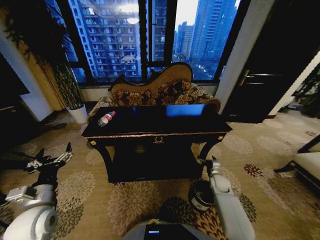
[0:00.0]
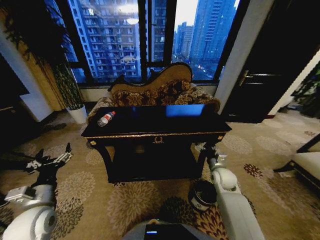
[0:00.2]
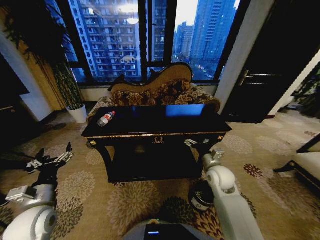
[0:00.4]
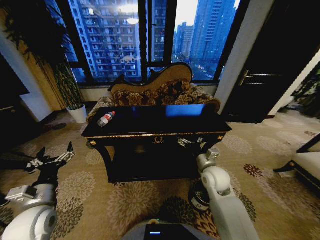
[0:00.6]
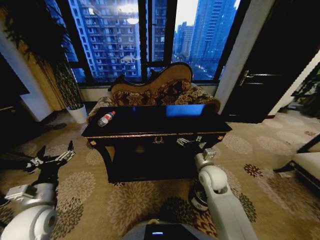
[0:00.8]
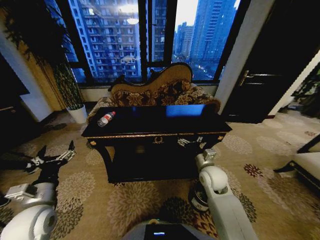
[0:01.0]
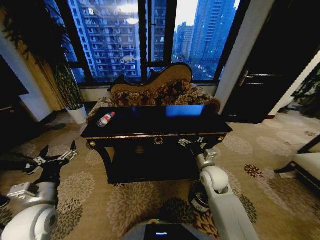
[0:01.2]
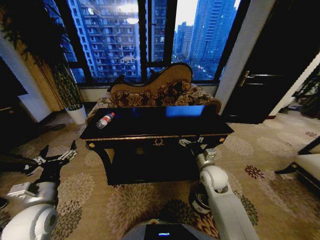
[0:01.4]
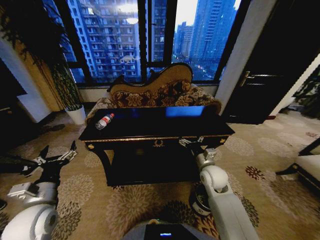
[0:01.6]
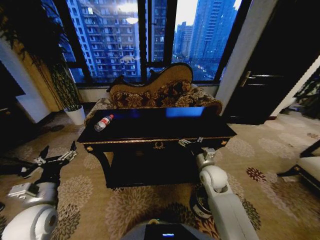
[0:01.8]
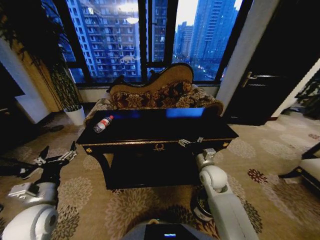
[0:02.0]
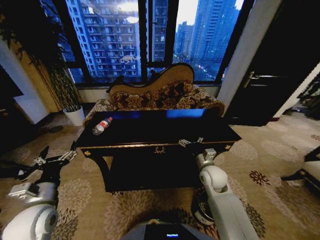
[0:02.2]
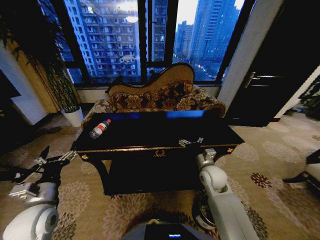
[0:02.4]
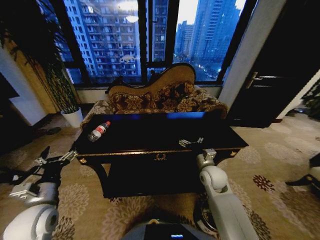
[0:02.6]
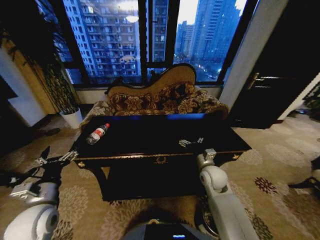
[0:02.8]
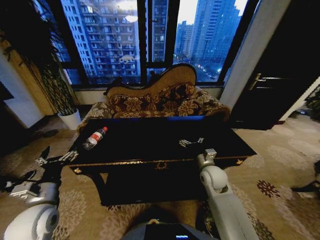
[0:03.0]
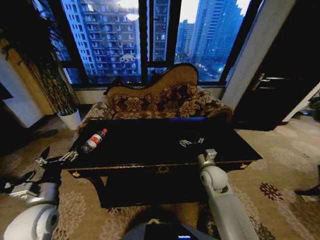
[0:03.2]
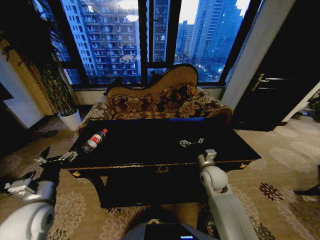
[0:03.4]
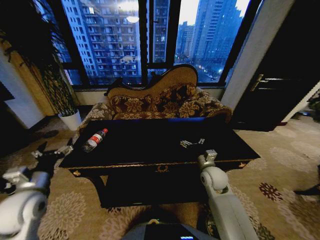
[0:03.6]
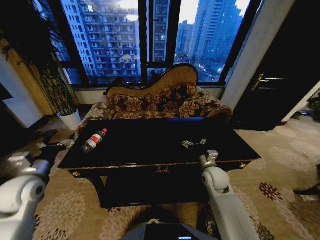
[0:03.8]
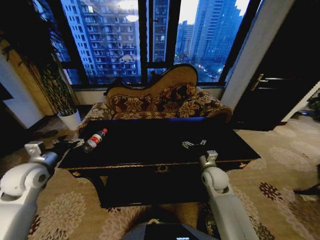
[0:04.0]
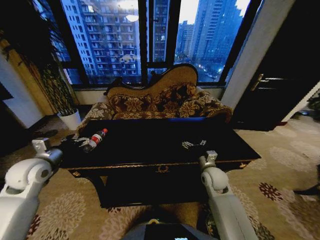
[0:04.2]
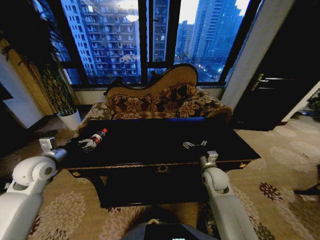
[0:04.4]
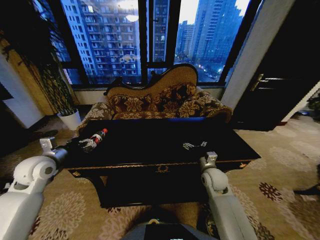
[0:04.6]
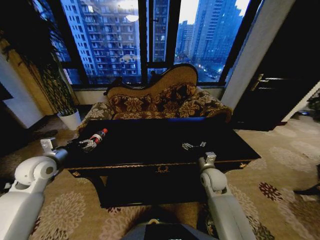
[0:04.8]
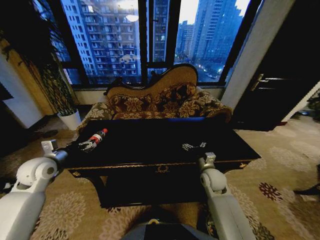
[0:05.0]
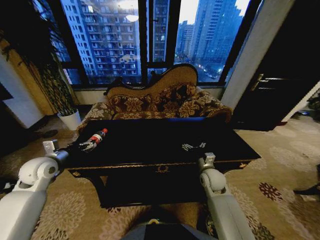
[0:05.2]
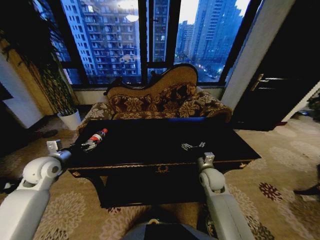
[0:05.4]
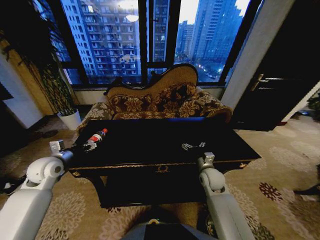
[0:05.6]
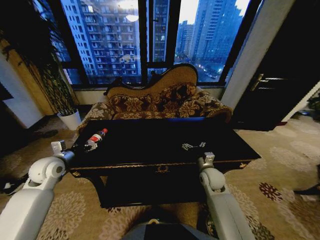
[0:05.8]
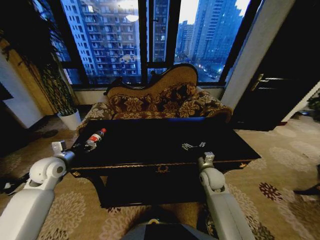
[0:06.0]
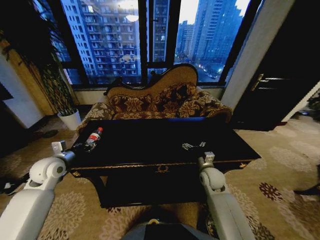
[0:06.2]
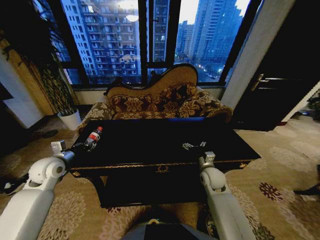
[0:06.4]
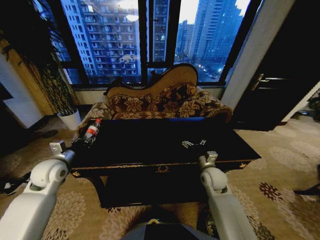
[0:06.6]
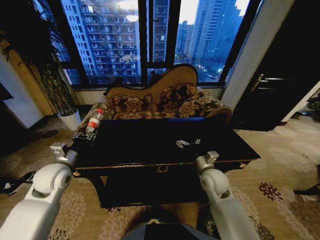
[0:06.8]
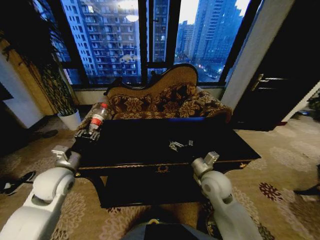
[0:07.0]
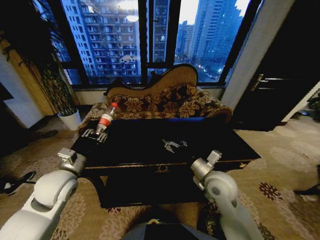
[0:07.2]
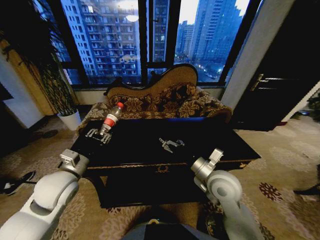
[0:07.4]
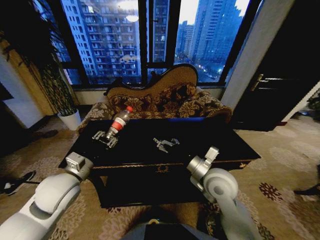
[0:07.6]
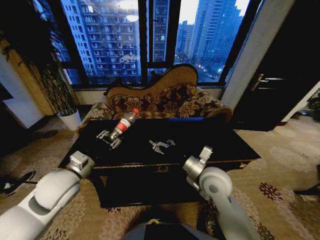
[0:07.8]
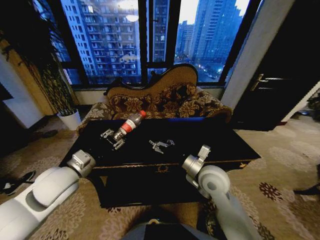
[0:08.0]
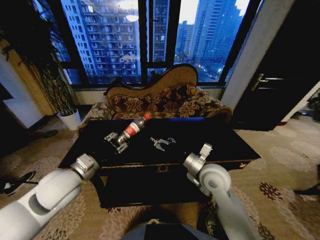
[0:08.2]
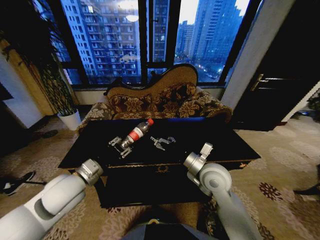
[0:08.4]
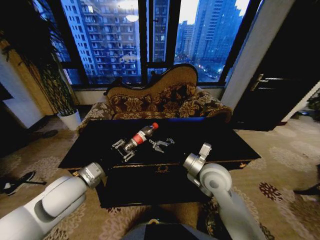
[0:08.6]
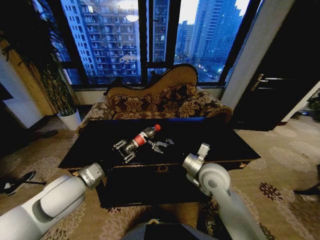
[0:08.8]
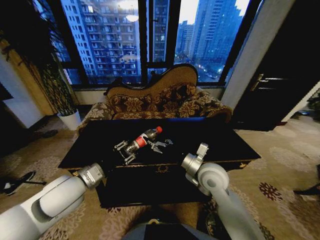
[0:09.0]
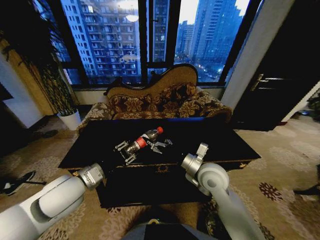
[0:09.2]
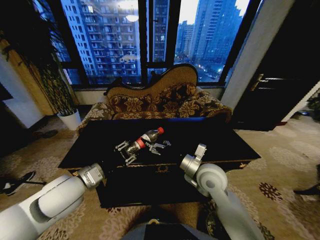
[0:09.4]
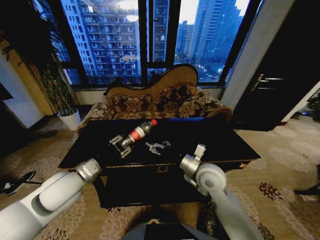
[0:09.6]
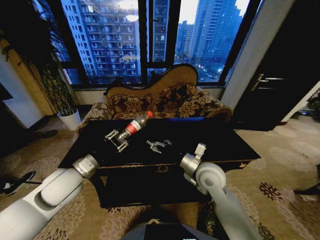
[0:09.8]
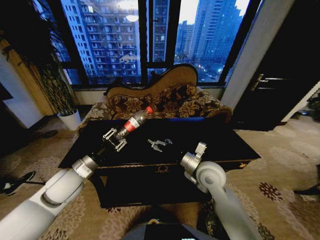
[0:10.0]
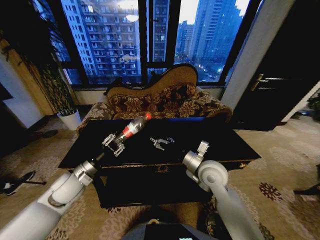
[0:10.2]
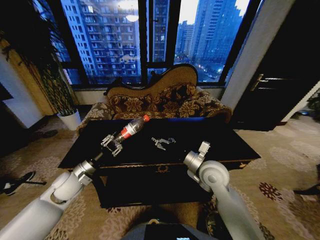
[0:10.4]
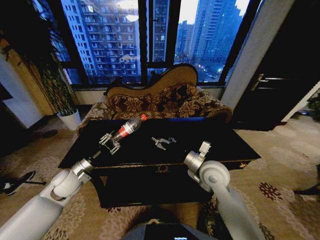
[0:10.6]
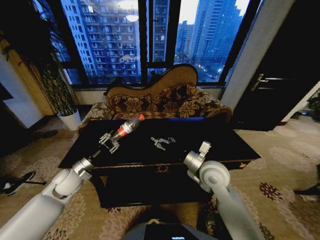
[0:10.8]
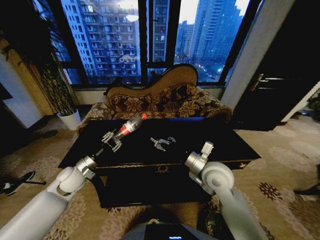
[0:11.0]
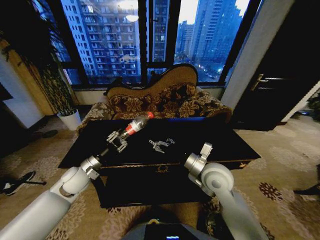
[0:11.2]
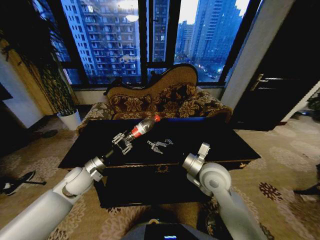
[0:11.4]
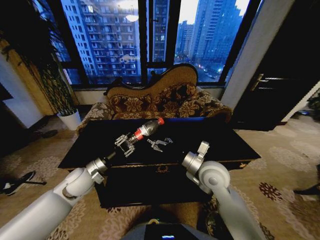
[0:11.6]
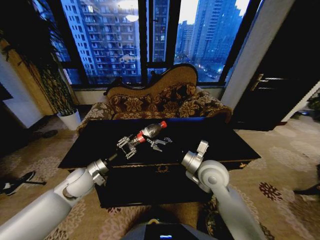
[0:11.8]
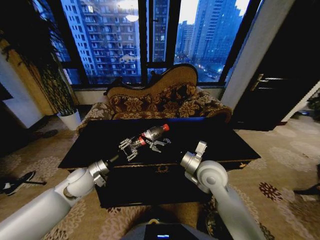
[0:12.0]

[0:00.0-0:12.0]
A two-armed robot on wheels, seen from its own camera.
Task of the whole recording: Move to the front of the table and place the trash on the table into the trash bin.
0:00.0 to 0:01.6: The right gripper is displaced upward and to the left by some 20 cm.
0:03.0 to 0:04.4: The left gripper is displaced forward and to the left by roughly 15 cm.
0:04.4 to 0:06.0: The left gripper closes its fingers.
0:06.0 to 0:07.6: The left gripper moves to the right and backward, approximately 15 cm, and closes, while the right gripper heads upward, backward and to the left, covering approximately 15 cm.
0:09.0 to 0:10.4: The left gripper travels downward, to the left and forward by some 15 cm.
0:10.4 to 0:12.0: The grippers move only a little.

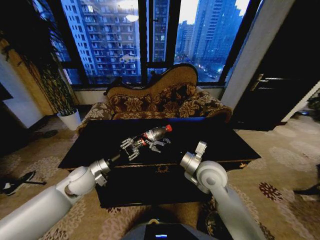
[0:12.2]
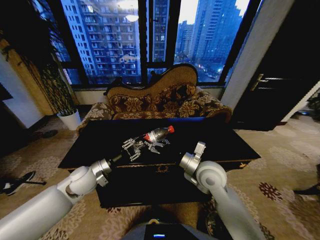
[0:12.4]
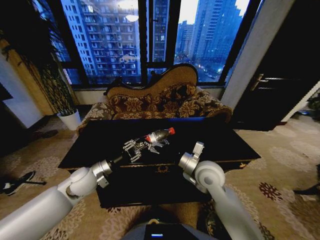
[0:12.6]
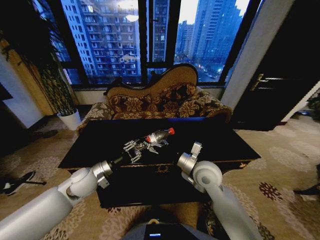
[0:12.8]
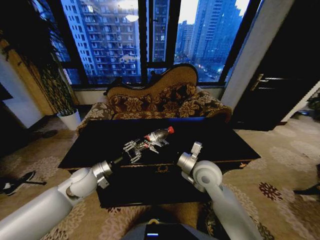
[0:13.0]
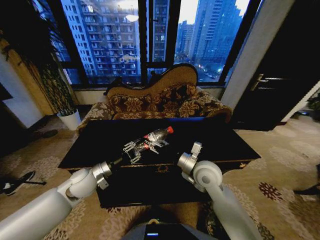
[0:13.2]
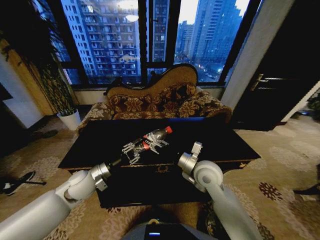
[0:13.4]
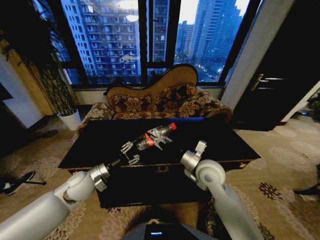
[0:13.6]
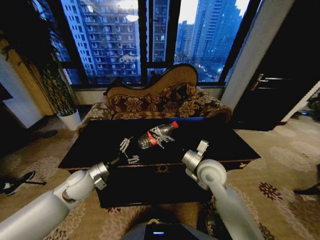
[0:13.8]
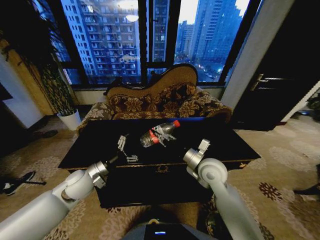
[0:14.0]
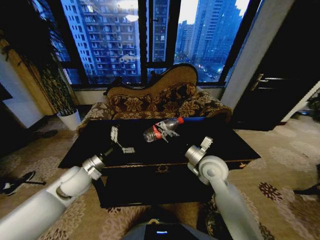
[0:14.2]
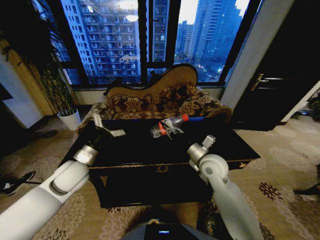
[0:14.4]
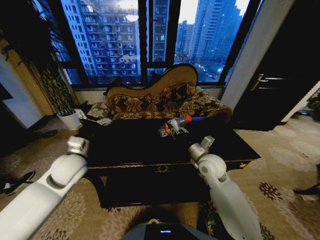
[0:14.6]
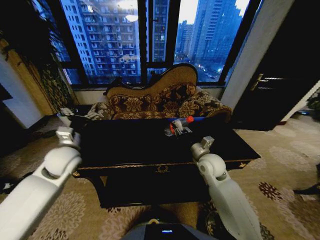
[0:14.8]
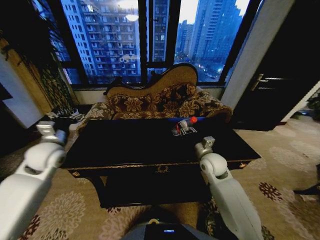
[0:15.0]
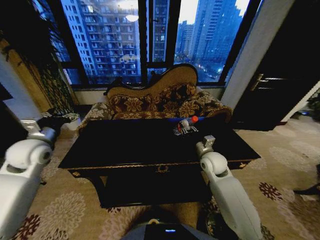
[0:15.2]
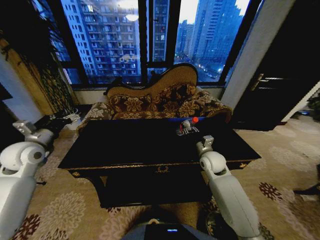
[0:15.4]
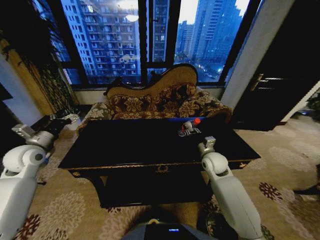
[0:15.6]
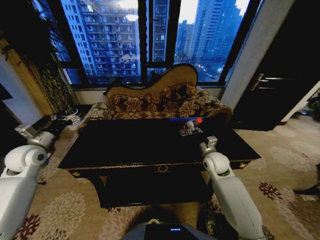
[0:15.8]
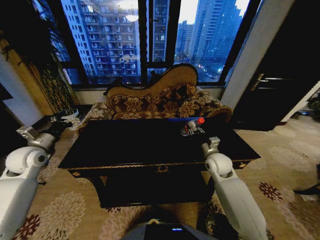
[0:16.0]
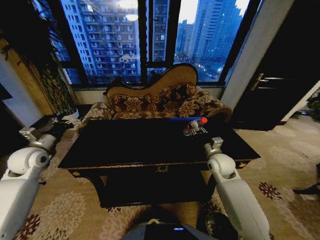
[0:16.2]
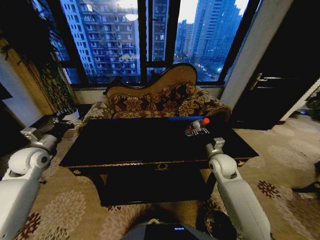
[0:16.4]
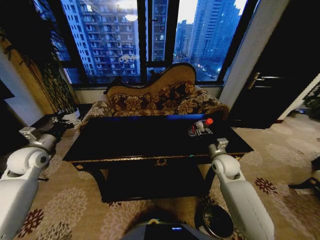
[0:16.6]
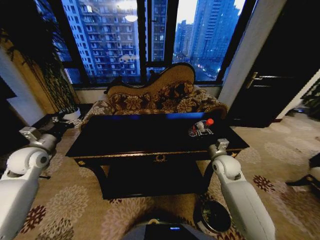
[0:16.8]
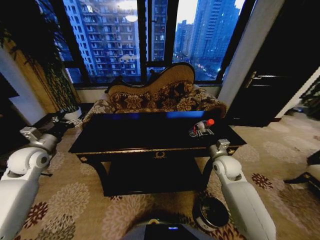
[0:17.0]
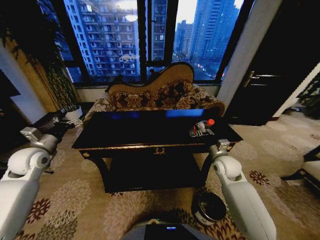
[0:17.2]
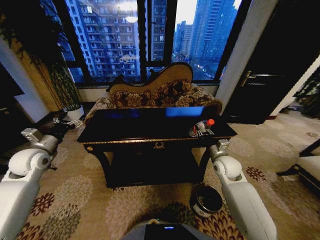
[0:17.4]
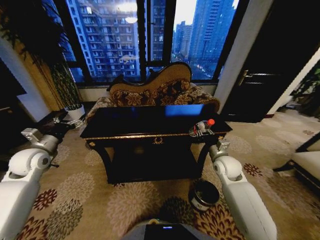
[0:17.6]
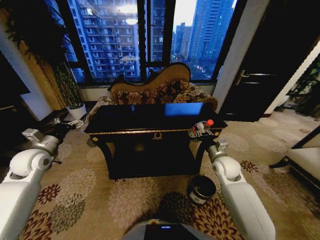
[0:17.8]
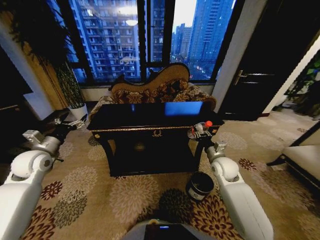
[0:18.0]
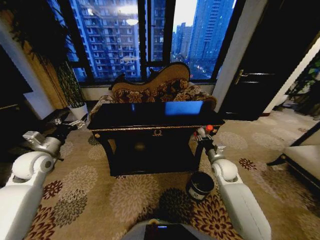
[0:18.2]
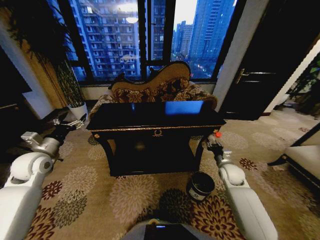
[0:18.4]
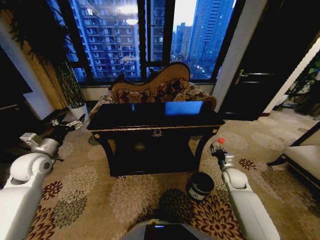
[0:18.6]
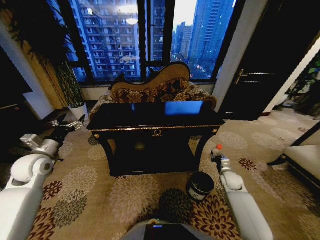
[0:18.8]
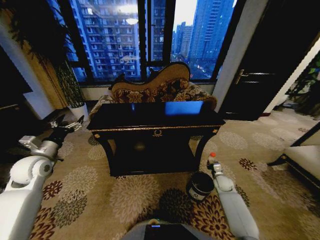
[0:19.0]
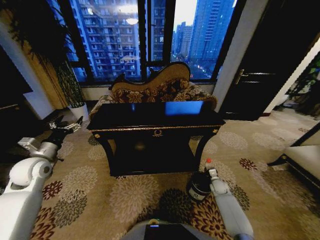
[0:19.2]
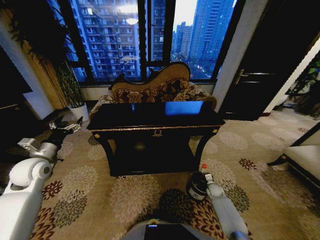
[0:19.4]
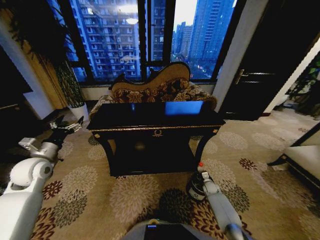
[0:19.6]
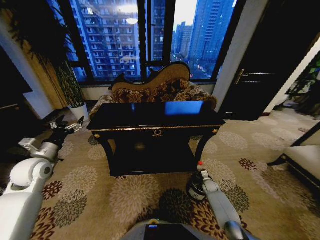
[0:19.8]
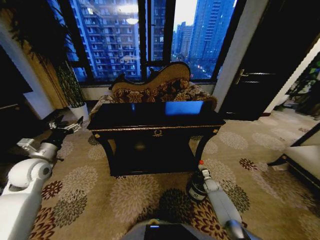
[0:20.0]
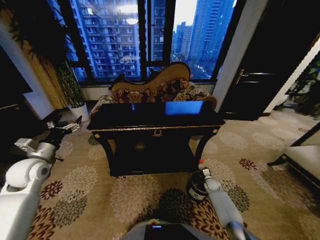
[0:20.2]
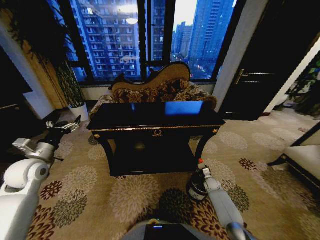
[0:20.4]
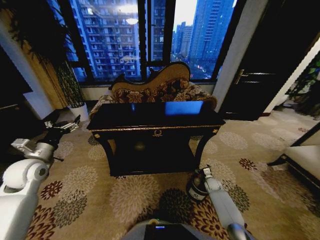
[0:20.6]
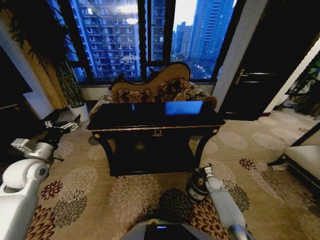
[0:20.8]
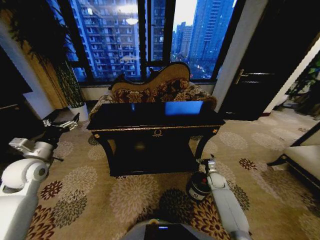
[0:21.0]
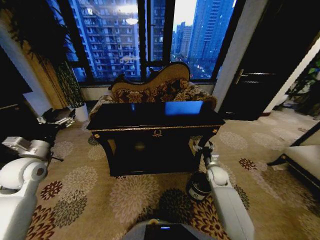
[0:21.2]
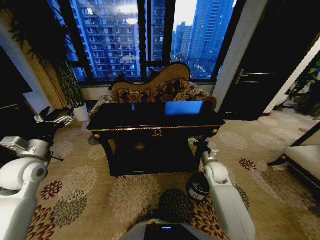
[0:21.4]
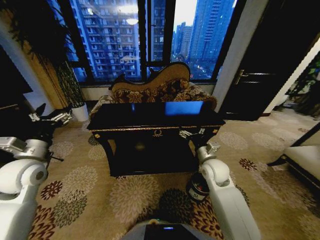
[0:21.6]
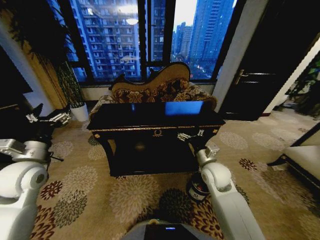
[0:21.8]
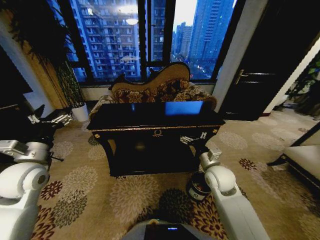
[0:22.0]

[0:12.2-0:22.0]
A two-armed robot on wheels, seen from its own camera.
Task of the whole recording: Move to the front of the table and place the trash on the table into the trash bin.
0:12.2 to 0:13.6: The right gripper closes its fingers.
0:13.6 to 0:15.0: The left gripper goes roughly 15 cm upward, to the left and forward, and opens its fingers, while the right gripper heads forward and to the right, covering about 10 cm.
0:15.0 to 0:16.4: The right gripper moves to the right, approximately 5 cm. Meanwhile the left gripper is displaced to the left by approximately 10 cm.
0:17.8 to 0:19.2: The right gripper goes some 25 cm downward.
0:19.2 to 0:20.6: The right gripper opens.
0:20.6 to 0:22.0: The left gripper shifts approximately 5 cm to the right. Meanwhile the right gripper travels upward and to the left by approximately 30 cm.
